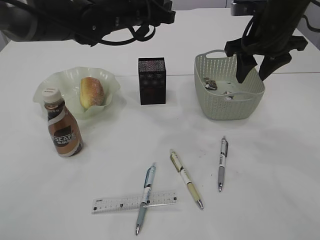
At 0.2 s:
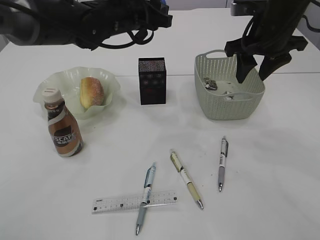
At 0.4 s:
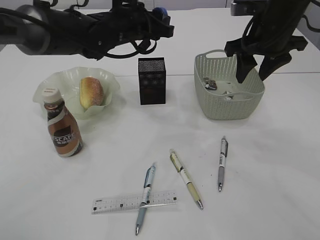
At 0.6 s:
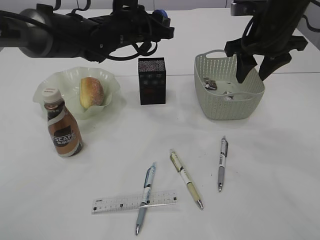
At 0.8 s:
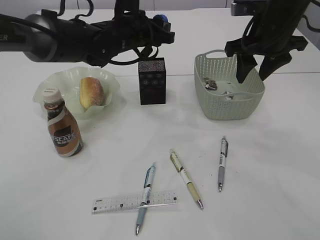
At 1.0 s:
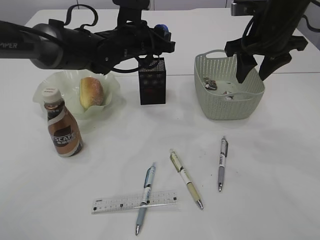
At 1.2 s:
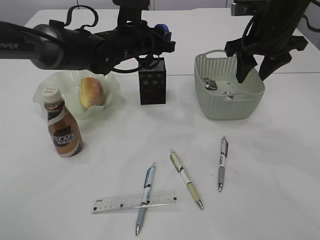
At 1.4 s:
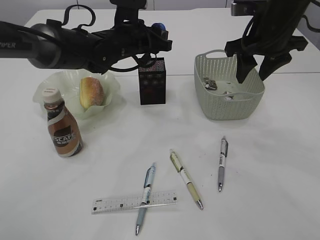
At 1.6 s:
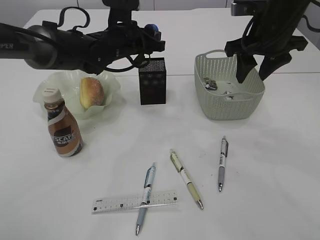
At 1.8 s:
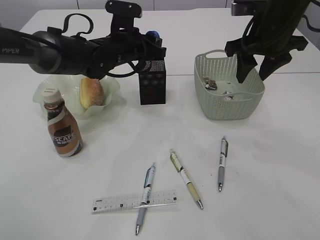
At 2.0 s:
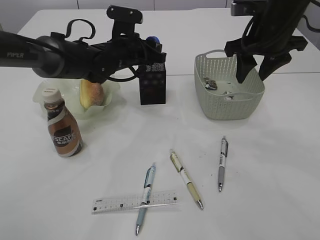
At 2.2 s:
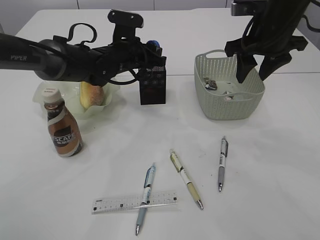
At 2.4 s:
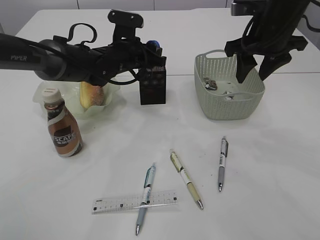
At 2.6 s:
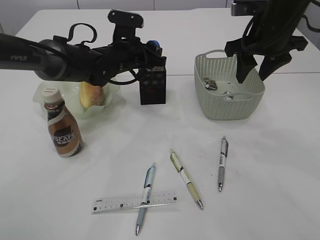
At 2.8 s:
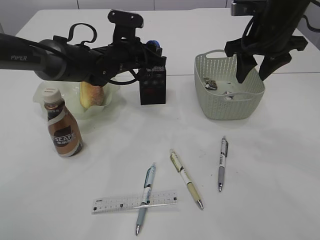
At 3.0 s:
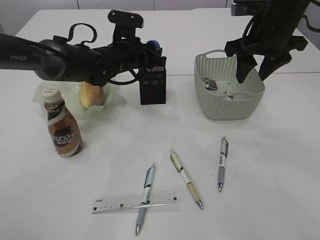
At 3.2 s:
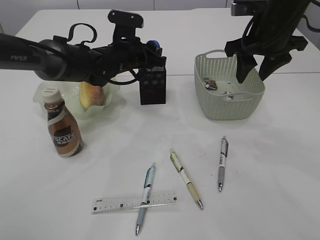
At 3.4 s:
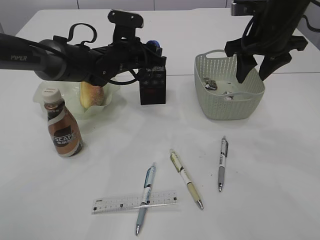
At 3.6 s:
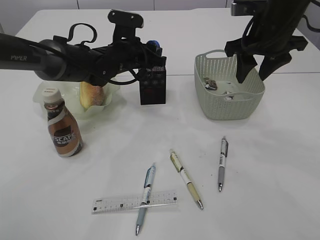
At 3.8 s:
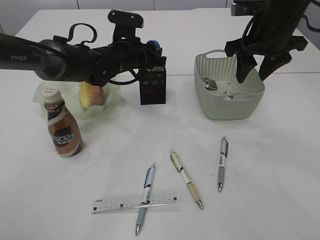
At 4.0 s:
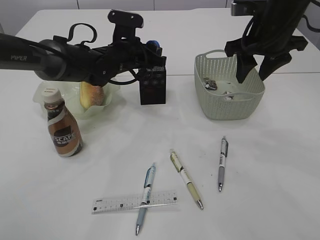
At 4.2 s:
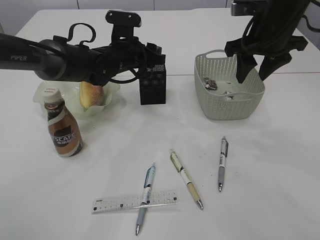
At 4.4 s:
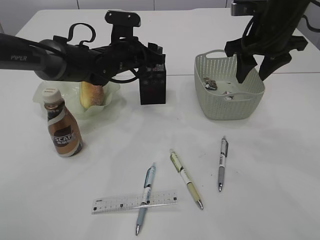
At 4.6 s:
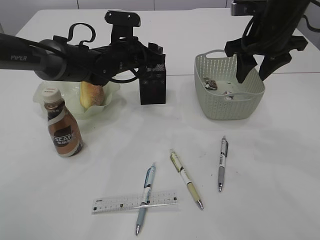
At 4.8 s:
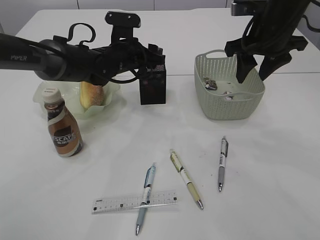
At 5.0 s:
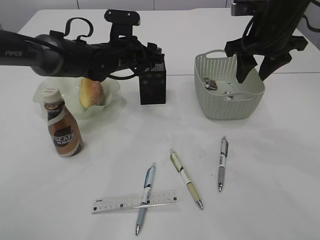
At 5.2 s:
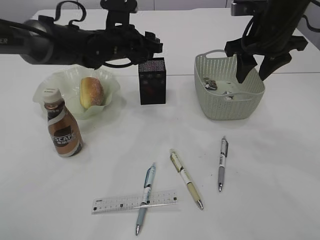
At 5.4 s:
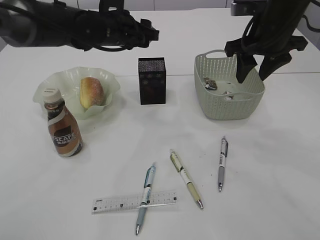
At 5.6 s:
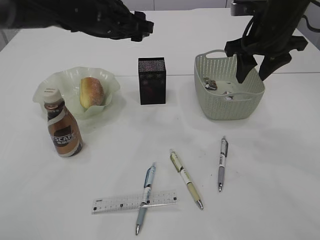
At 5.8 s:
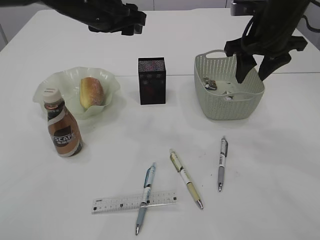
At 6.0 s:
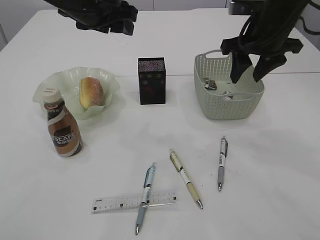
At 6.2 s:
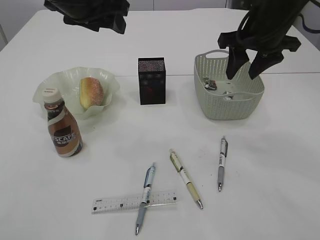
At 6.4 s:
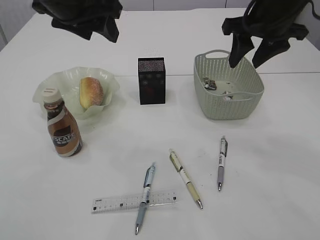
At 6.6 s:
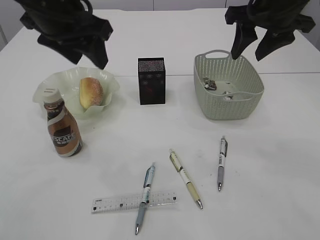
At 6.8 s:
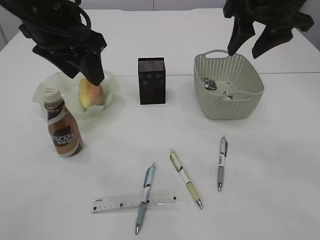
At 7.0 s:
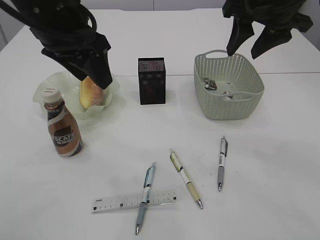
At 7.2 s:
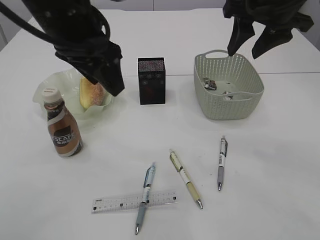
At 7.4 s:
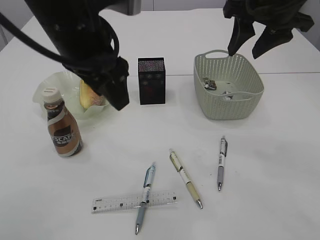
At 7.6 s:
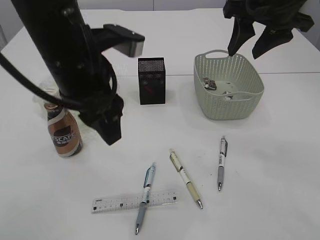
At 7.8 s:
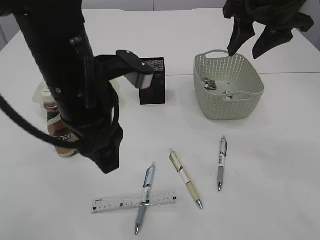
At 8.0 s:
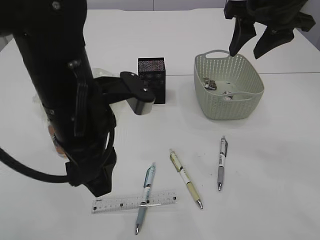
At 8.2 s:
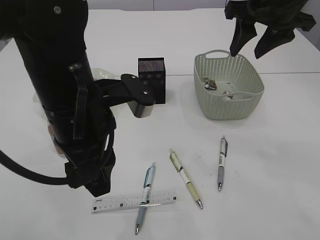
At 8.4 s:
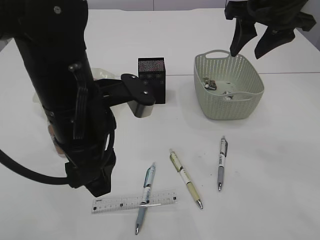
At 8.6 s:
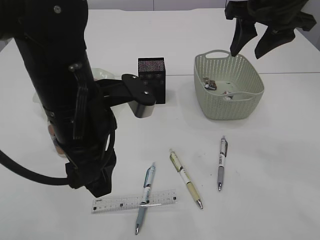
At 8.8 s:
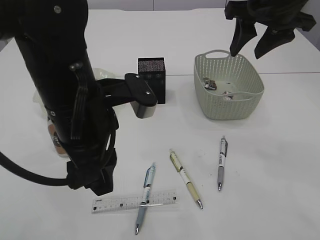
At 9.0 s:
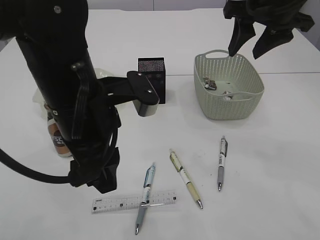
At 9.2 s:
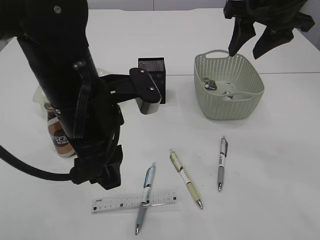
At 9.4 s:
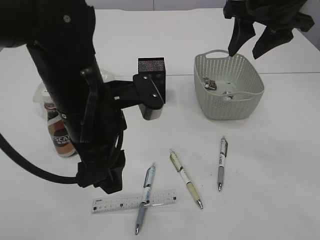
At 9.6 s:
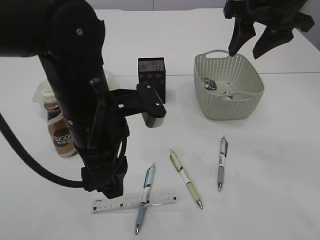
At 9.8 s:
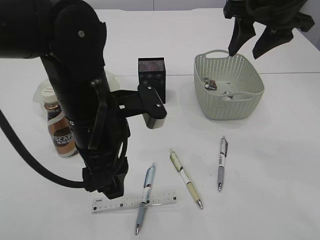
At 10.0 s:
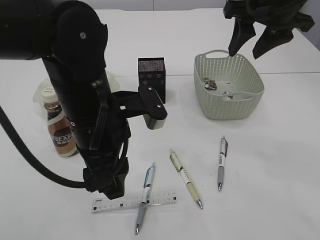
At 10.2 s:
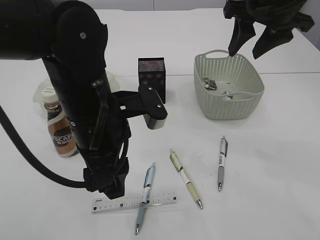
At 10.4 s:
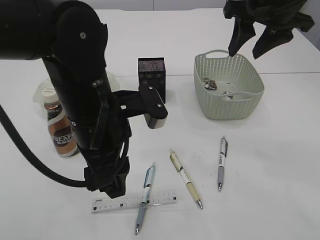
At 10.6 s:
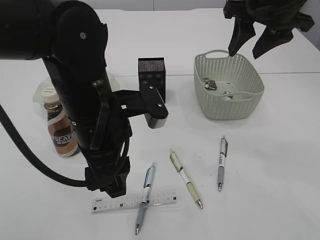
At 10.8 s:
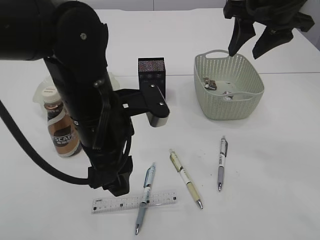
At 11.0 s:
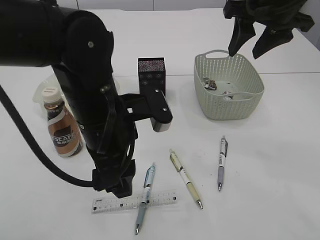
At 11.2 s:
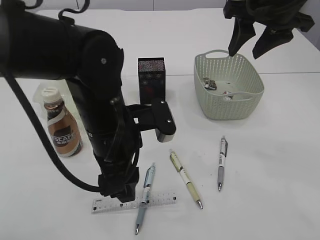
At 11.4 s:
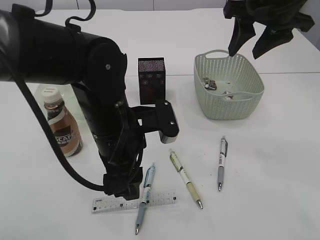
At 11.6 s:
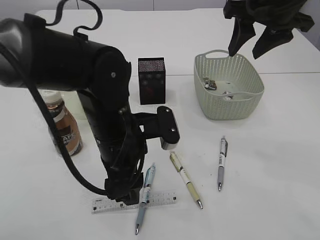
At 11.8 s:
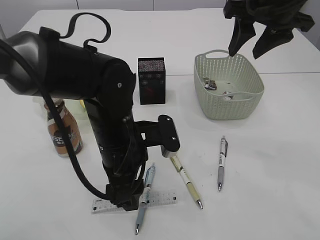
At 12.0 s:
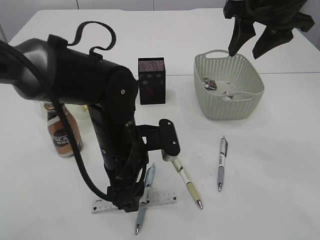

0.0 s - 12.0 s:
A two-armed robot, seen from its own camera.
Step, 0.0 s - 5.2 s: Place the blue pencil sharpener into the pen holder.
0.0 s - 1.6 s: The left gripper shifts roughly 5 cm downward.
1.6 s - 3.0 s: The grippers move only a little.
3.0 s - 4.4 s: Both grippers stay about where they are.
4.4 s - 6.0 s: The left gripper is displaced upward and backward by about 15 cm.
6.0 s - 7.6 s: The left gripper goes roughly 10 cm backward. The right gripper moves upward, approximately 5 cm.
7.6 s - 9.0 s: The left gripper moves roughly 5 cm.
9.0 s - 10.4 s: The grippers make only small movements.
10.4 s - 12.0 s: The left gripper goes approximately 10 cm downward.

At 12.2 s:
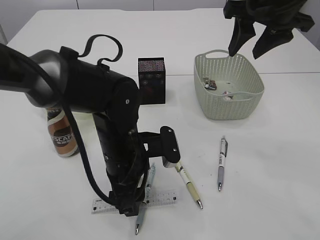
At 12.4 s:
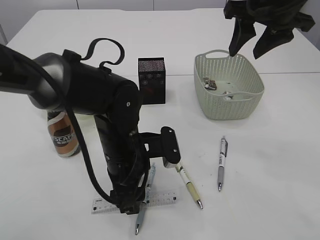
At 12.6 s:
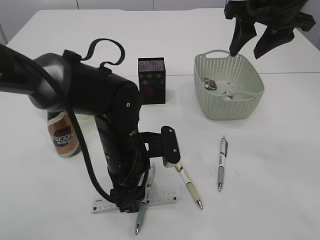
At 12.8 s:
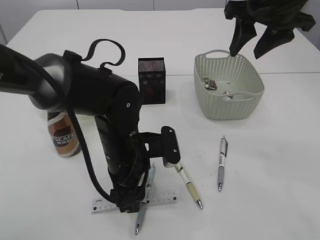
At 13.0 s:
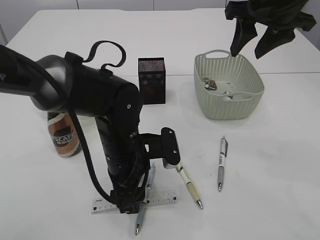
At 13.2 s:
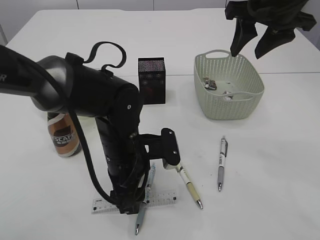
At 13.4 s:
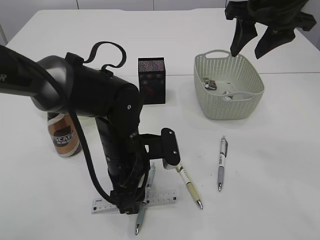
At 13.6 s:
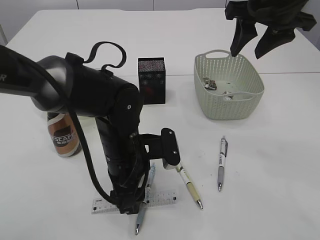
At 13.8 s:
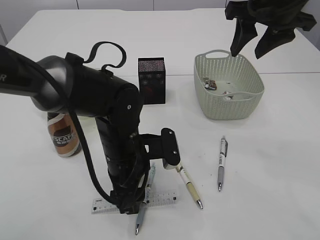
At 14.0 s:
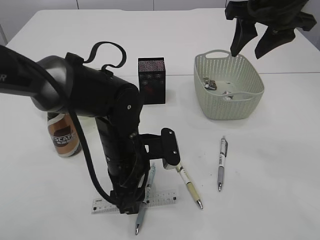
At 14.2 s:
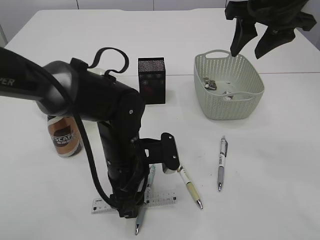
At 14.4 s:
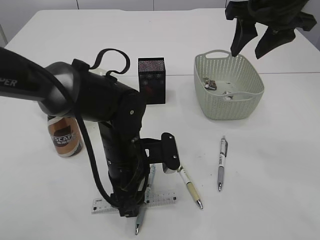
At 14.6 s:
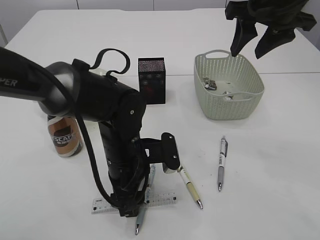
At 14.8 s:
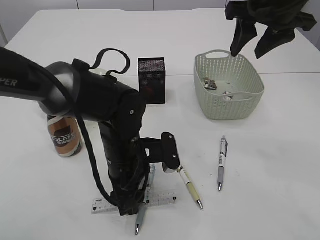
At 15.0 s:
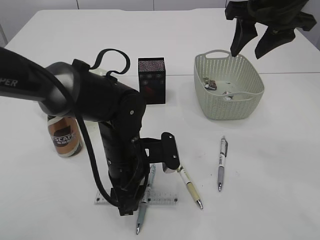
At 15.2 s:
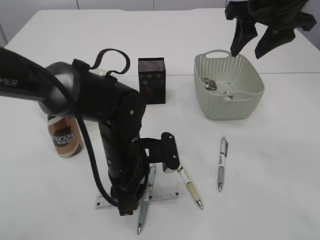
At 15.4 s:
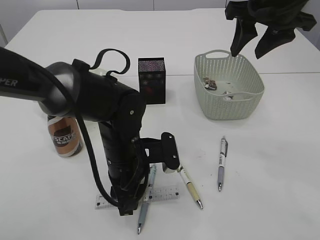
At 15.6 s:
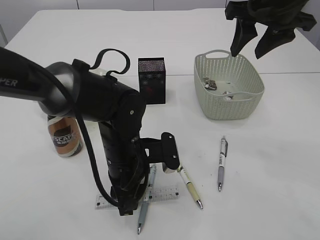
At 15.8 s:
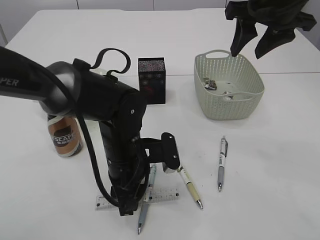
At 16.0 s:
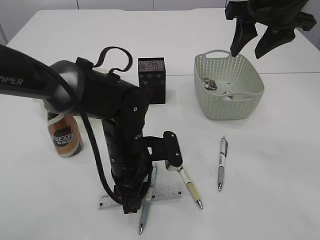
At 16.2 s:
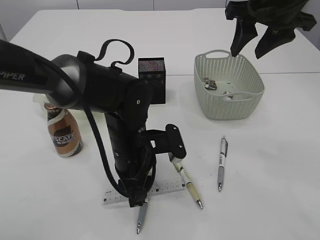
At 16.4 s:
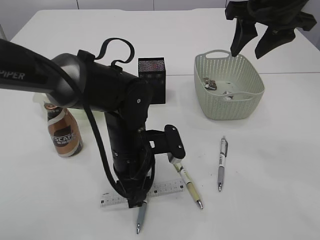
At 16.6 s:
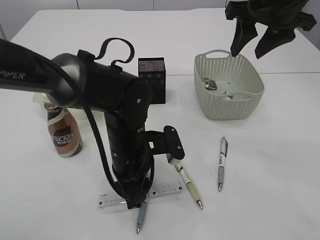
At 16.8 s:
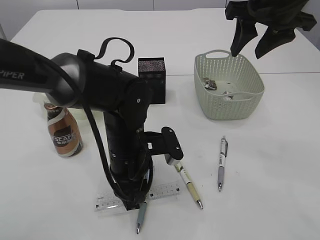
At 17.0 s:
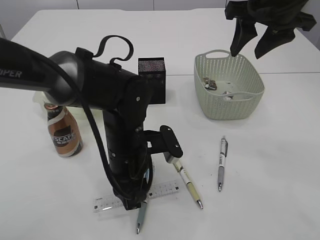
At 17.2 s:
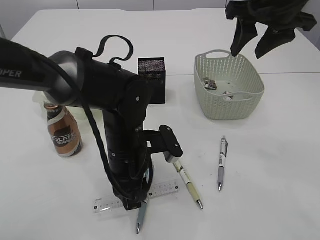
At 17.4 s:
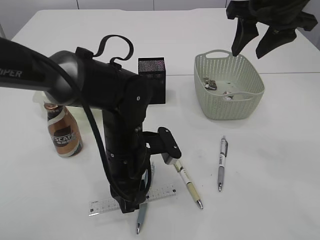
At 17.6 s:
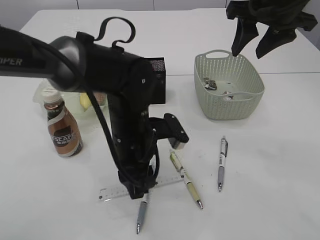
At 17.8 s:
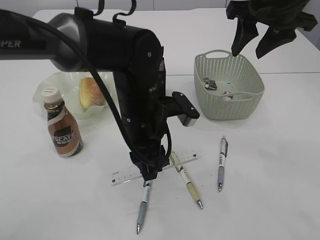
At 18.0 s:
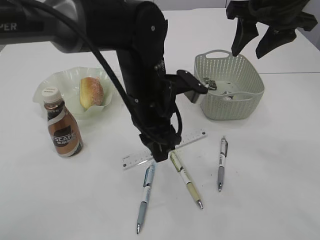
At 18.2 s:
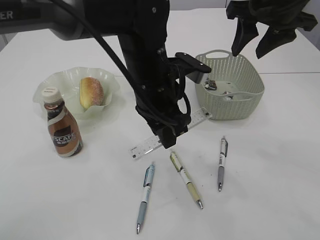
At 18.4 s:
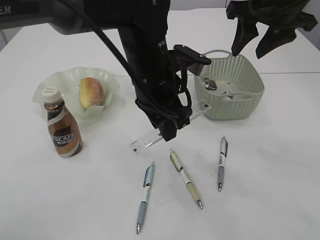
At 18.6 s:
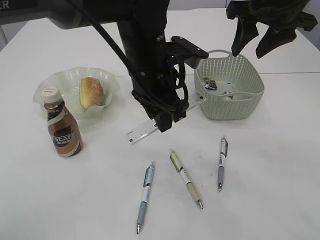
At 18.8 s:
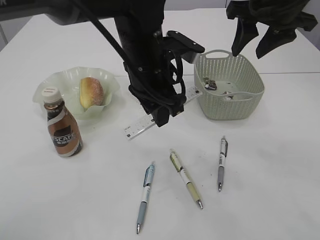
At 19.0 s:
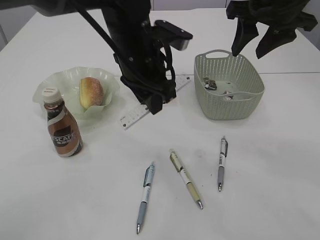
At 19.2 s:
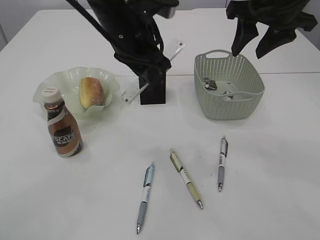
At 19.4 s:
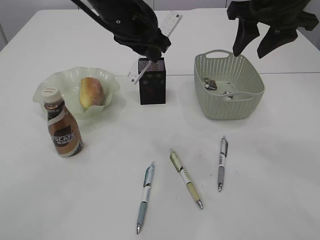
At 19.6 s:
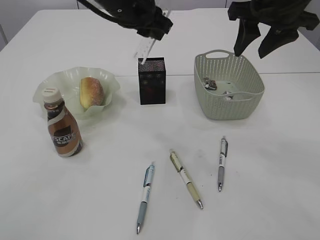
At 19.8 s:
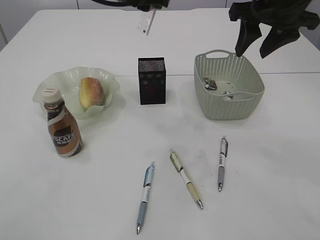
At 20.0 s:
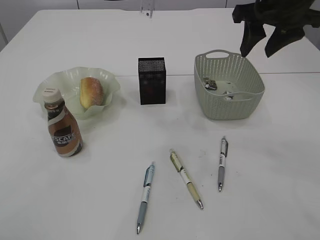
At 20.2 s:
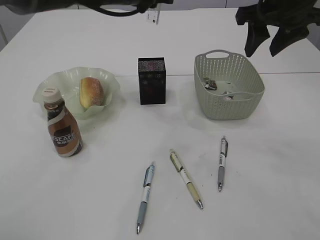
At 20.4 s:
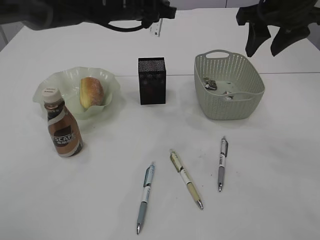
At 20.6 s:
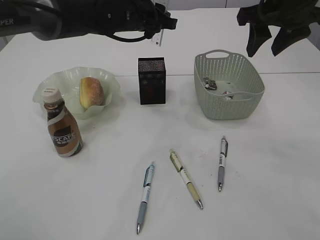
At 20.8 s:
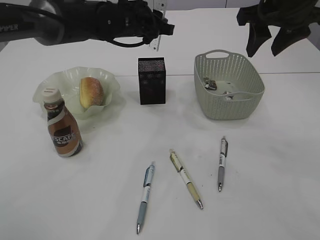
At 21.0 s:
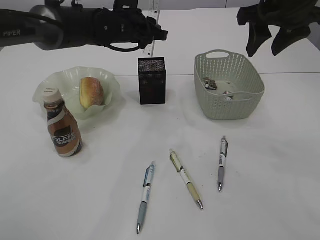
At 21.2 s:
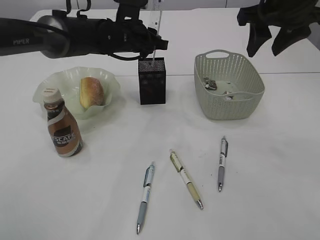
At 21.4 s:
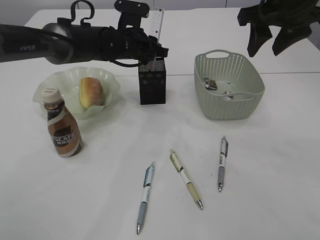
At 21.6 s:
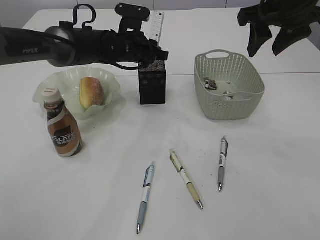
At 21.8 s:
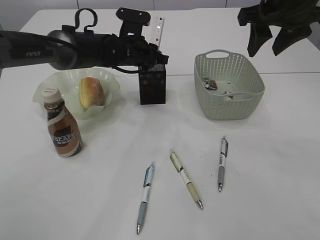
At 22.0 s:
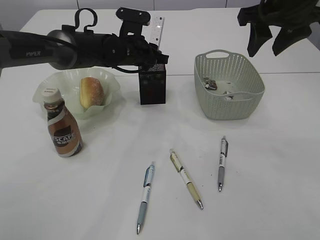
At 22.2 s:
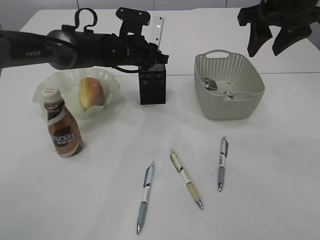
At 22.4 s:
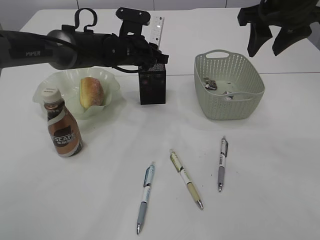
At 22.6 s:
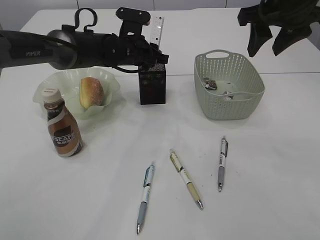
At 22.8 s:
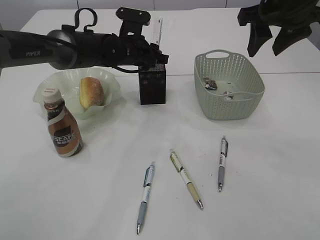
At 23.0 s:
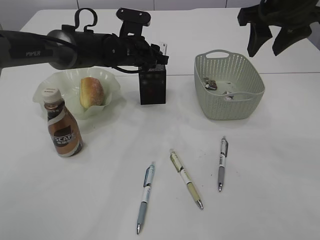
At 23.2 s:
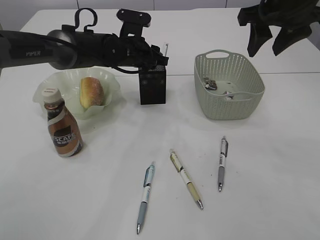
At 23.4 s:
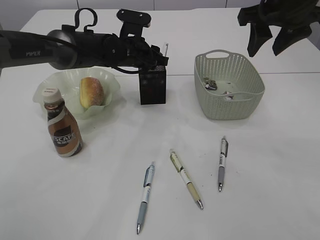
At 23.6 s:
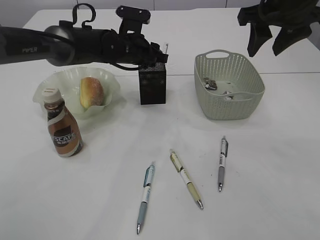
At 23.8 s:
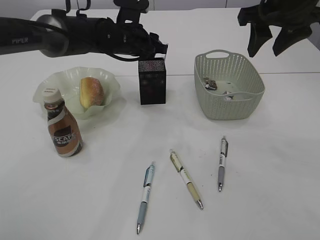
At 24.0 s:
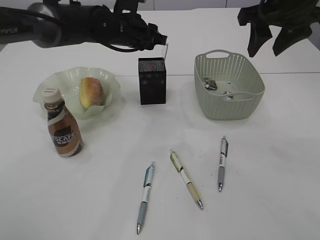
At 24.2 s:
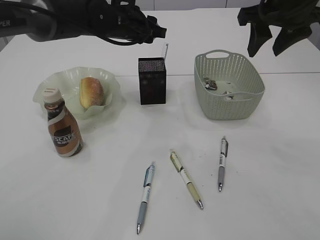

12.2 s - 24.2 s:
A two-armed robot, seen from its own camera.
Step, 12.2 s - 18.6 s: pick up the ruler.
12.2 s - 13.8 s: Both grippers stay put.
13.8 s - 15.2 s: The left gripper closes up.
15.2 s - 16.6 s: The grippers stay close to where they were, moving slightly.
16.6 s - 18.2 s: The left gripper travels upward by some 10 cm.
18.2 s - 19.8 s: The left gripper moves upward, forward and to the left, about 15 cm.
19.8 s - 21.2 s: The left gripper travels downward and forward by roughly 15 cm.
21.2 s - 22.6 s: The grippers make only small movements.
22.6 s - 24.2 s: The left gripper travels upward by some 5 cm.
